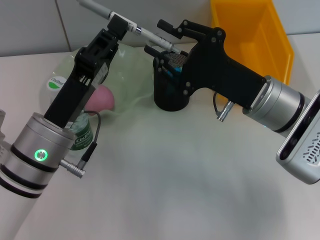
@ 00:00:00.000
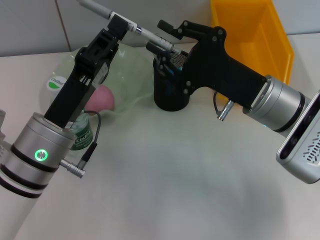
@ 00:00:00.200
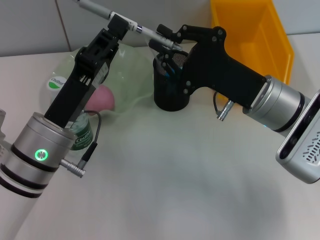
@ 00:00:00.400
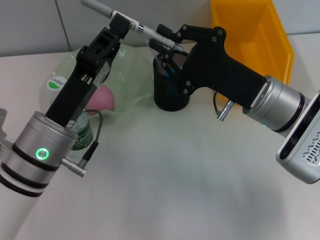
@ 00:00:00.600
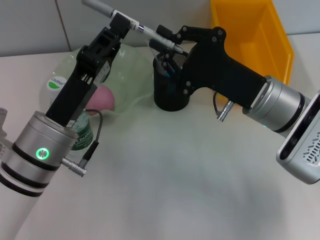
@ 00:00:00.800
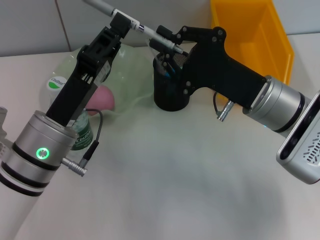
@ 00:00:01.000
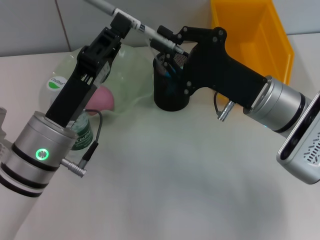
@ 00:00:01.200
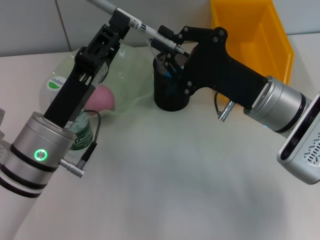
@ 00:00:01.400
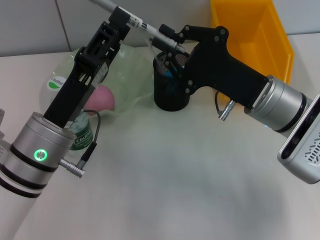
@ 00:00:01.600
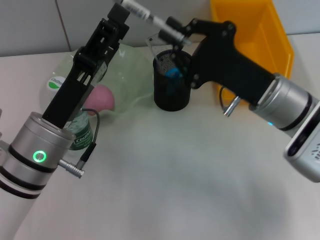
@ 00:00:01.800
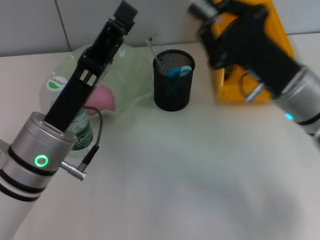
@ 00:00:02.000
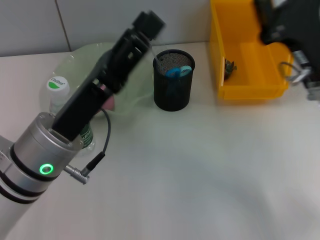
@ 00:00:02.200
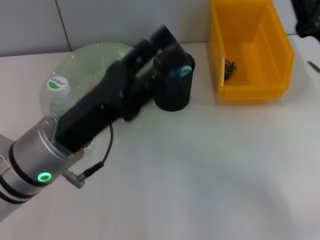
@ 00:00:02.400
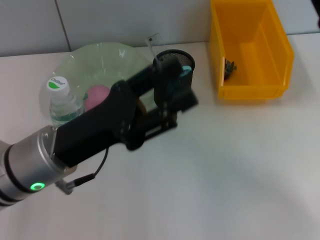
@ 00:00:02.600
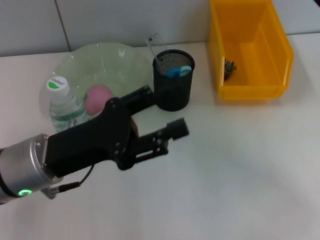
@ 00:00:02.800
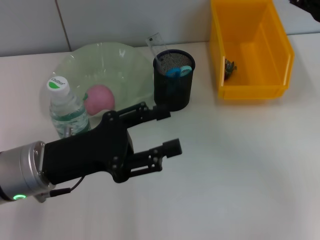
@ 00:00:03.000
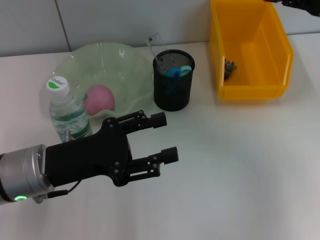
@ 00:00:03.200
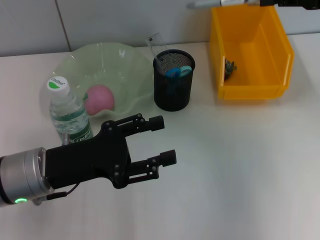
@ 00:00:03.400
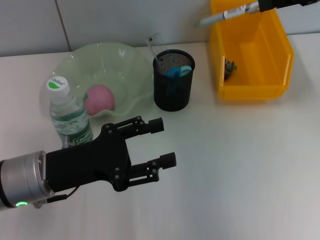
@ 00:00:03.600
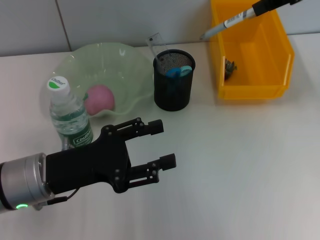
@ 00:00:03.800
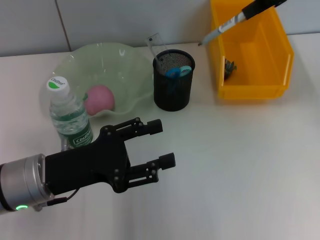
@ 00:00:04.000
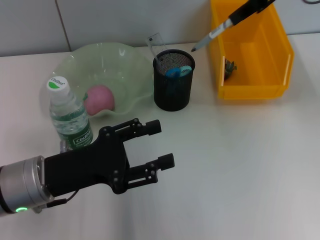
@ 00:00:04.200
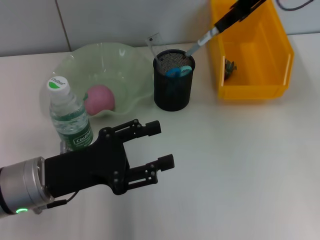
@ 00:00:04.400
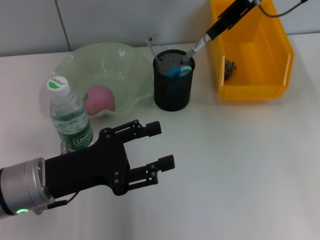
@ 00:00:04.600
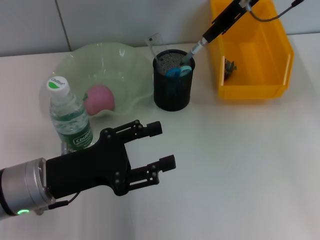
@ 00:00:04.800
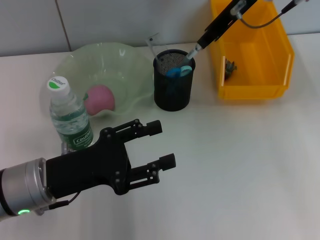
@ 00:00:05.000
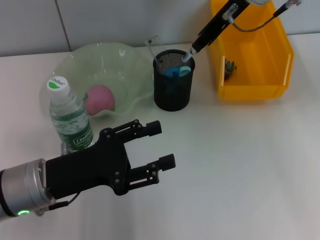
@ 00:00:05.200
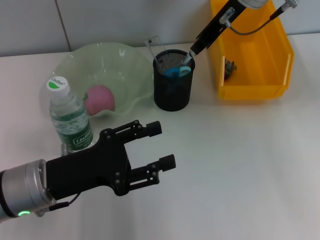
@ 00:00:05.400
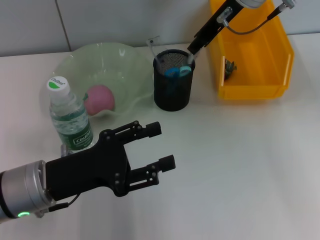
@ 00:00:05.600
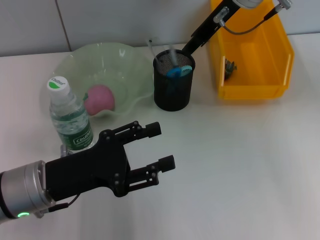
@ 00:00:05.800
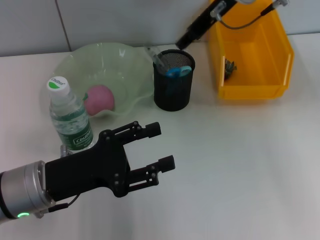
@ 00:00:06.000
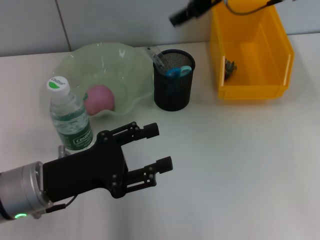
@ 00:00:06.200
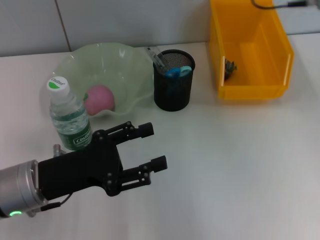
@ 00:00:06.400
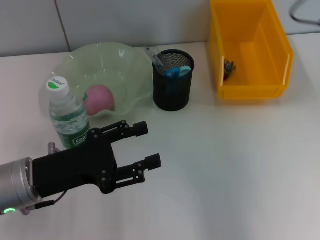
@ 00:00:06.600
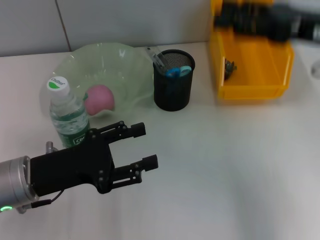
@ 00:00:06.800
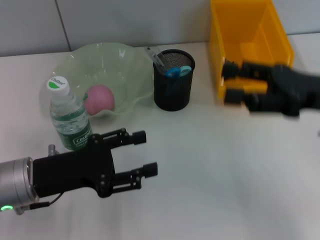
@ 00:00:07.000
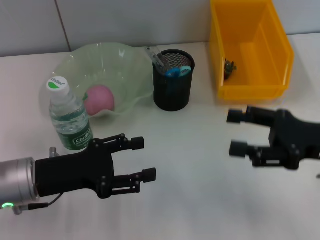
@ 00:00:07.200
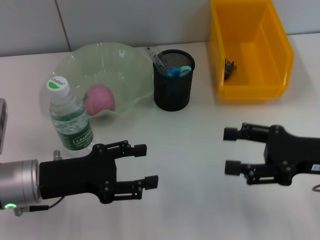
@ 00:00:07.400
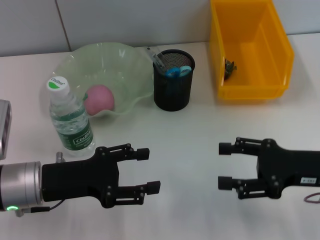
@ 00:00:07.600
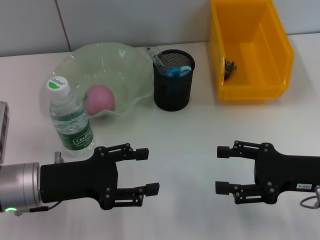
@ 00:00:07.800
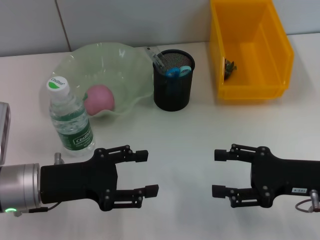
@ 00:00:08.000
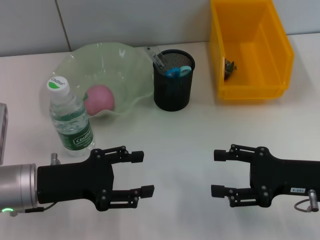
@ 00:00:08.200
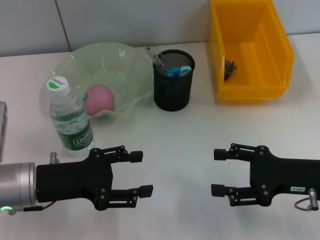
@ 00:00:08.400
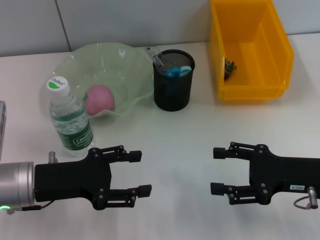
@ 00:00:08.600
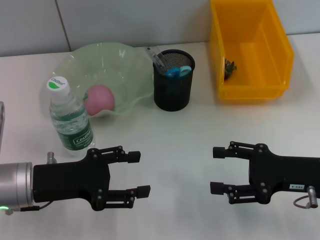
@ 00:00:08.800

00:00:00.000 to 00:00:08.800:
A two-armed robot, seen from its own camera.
Step, 00:00:02.000 to 00:00:06.000: Place the gray spring-action pen into the pen holder with the right hand.
00:00:00.000 to 00:00:01.400: The two grippers keep their place.
00:00:01.400 to 00:00:03.000: The left gripper opens up; the right gripper is displaced to the right and upward by roughly 20 cm.
00:00:03.000 to 00:00:04.400: The right gripper moves to the left, forward and upward, about 20 cm.
00:00:04.400 to 00:00:05.800: The right gripper shifts some 5 cm to the left.
00:00:05.800 to 00:00:07.400: The right gripper goes about 30 cm backward, downward and to the right, and opens up.
00:00:07.400 to 00:00:08.800: There are only small adjustments of the grippers.
